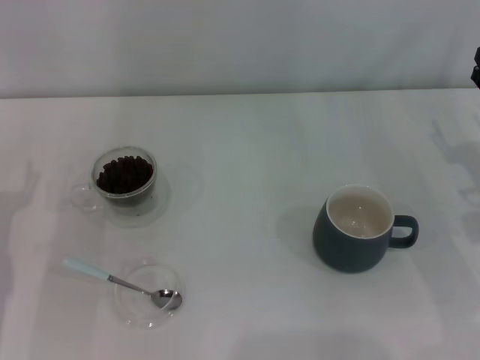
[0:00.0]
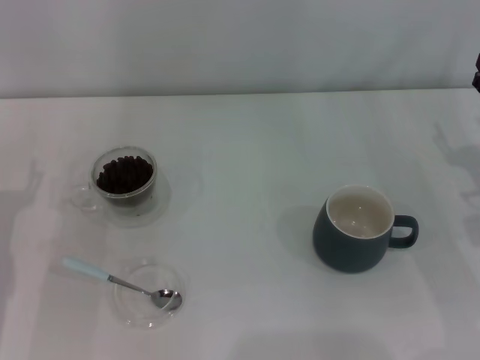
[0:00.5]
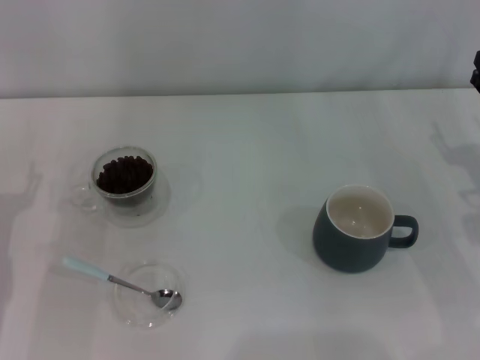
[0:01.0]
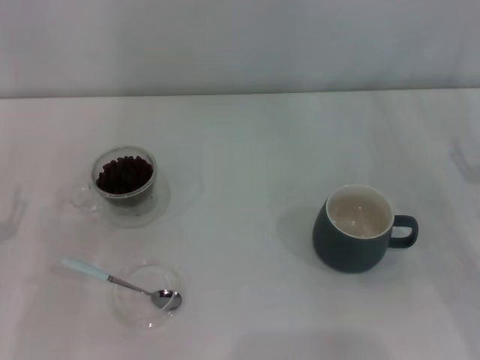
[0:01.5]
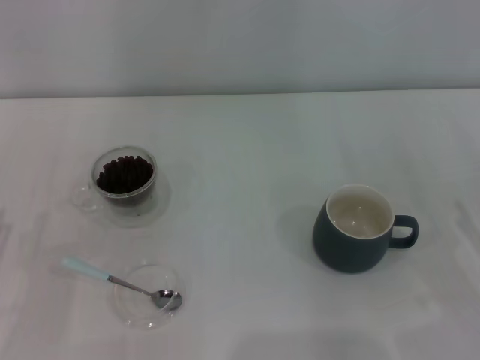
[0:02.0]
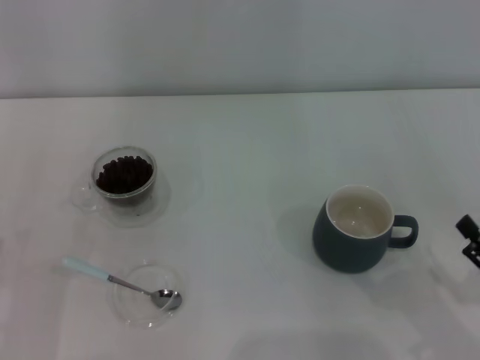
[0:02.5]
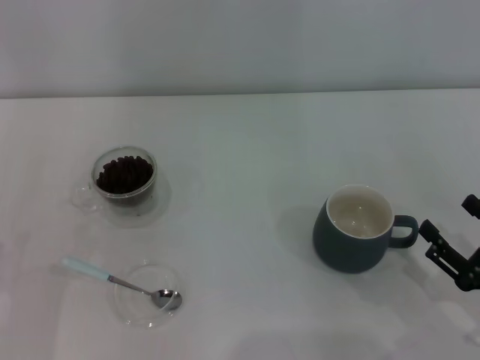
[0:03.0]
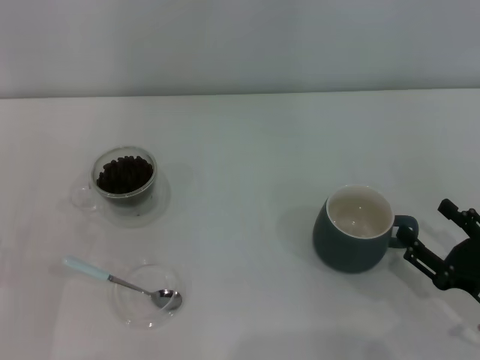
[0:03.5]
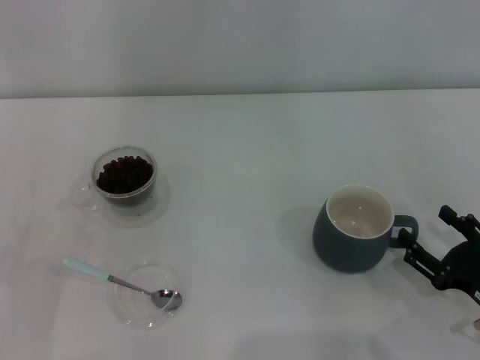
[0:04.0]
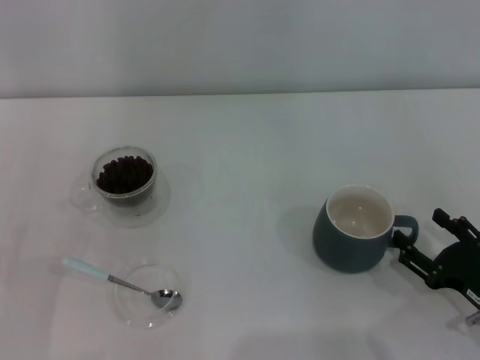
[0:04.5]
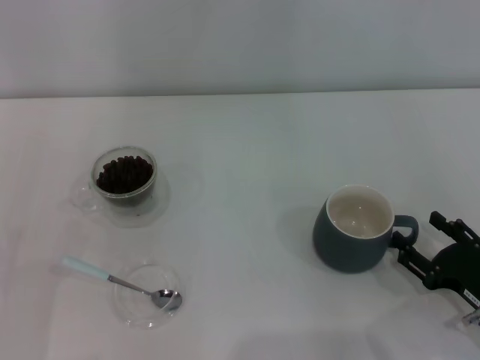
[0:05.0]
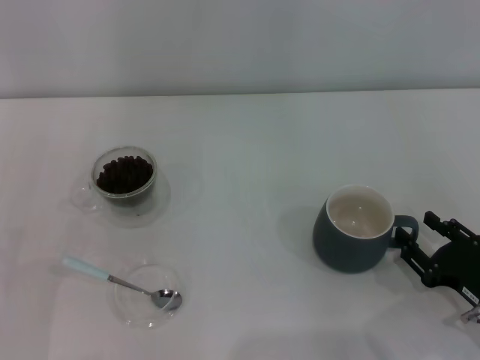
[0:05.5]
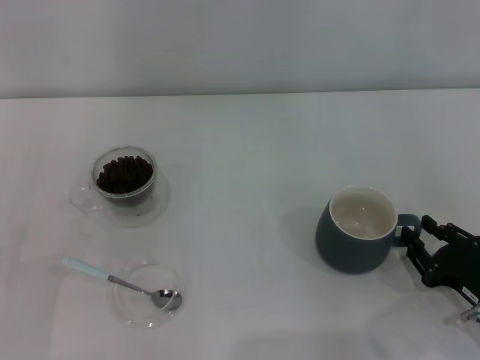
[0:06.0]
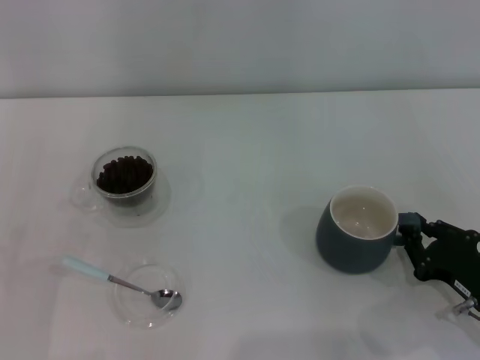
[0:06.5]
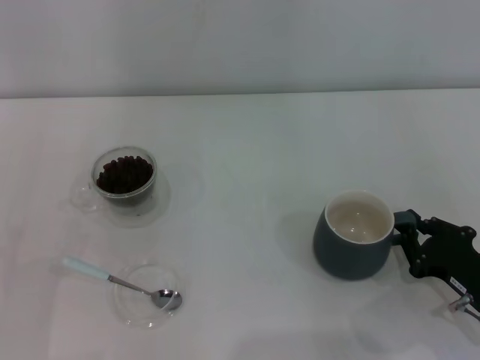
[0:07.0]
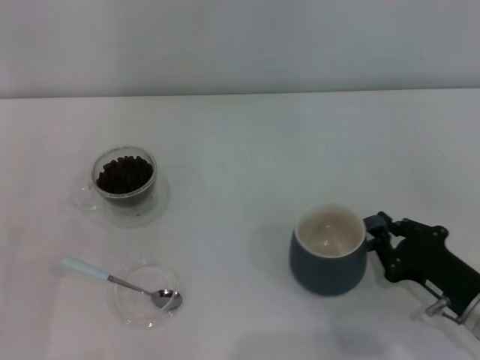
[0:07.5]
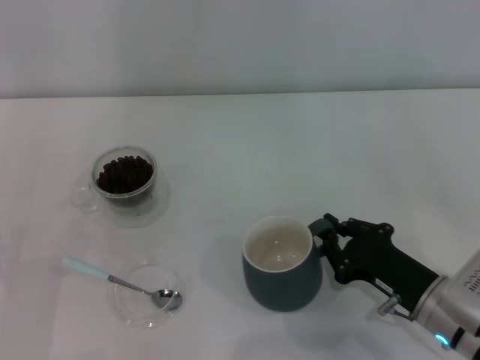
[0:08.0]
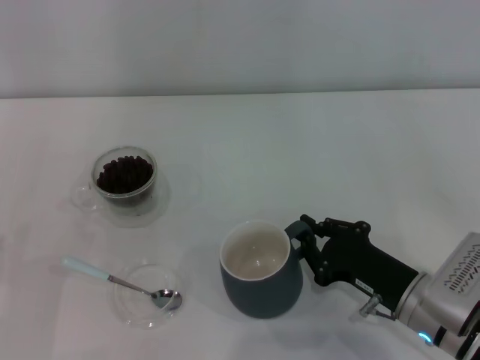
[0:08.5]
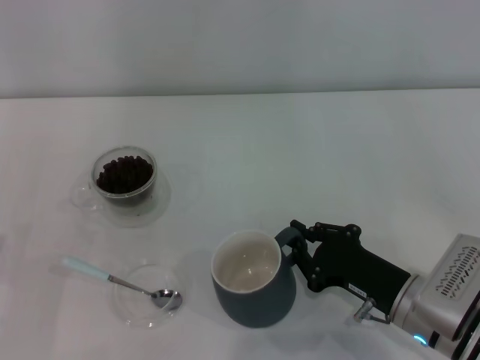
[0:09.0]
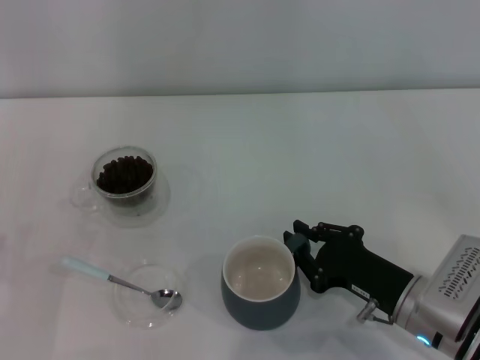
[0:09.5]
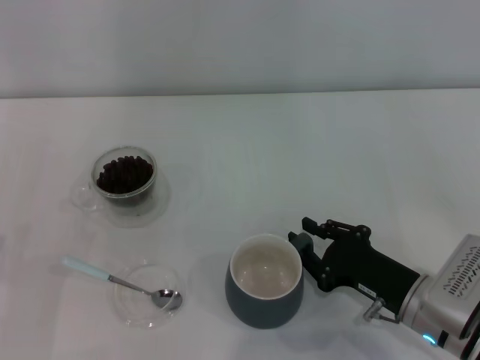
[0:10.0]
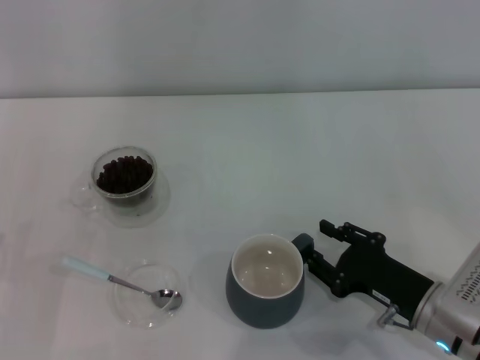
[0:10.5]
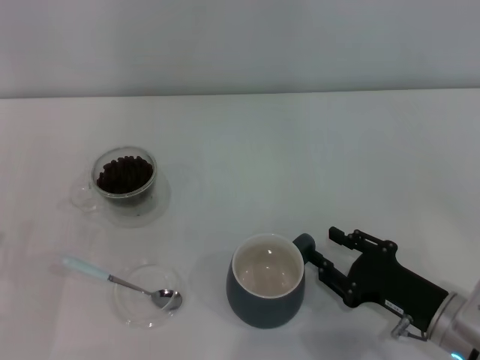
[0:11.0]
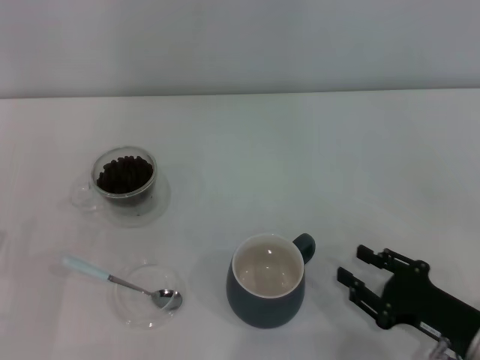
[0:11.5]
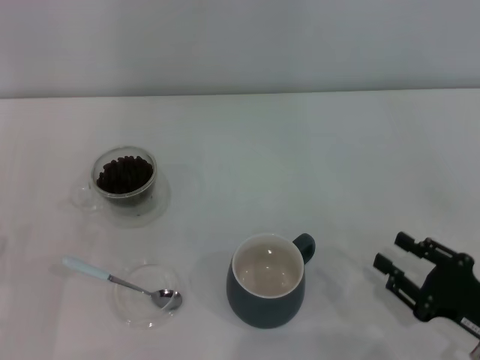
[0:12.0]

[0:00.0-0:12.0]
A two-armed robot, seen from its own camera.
Task of the whole recording: Use a blue spoon to take out the coffee beans from the glass and pour them into the gray cup.
Step, 0:00.0 to 0:11.0: Move the cup to the center of view with the left gripper.
0:02.0 to 0:04.0: The right gripper ends up roughly 5 cm from where it was.
0:04.0 to 0:06.0: The right gripper closes its fingers.
0:06.0 to 0:08.0: The right gripper travels to the left by some 10 cm, and closes its fingers.
0:08.0 to 0:10.0: The grippers make only small movements.
0:10.0 to 0:12.0: The right gripper goes some 10 cm to the right and backward.

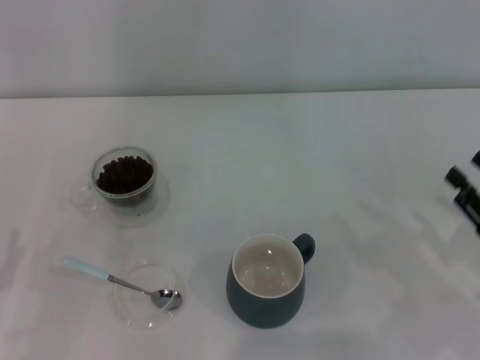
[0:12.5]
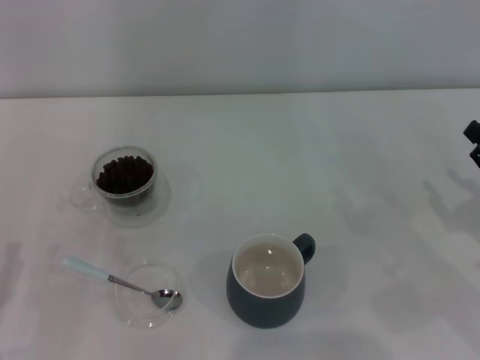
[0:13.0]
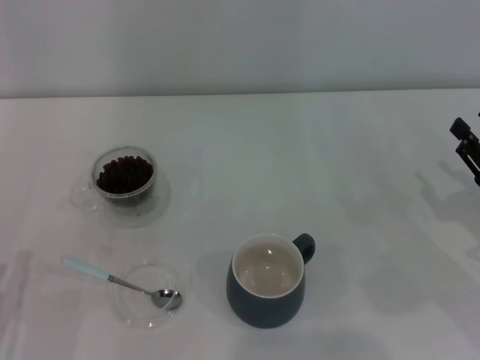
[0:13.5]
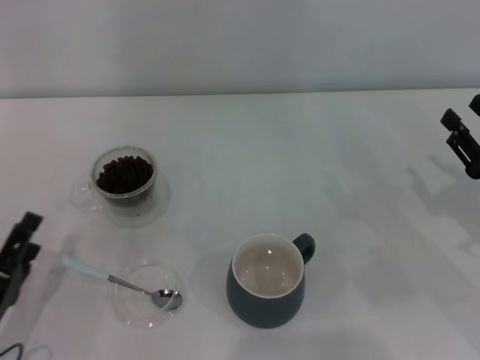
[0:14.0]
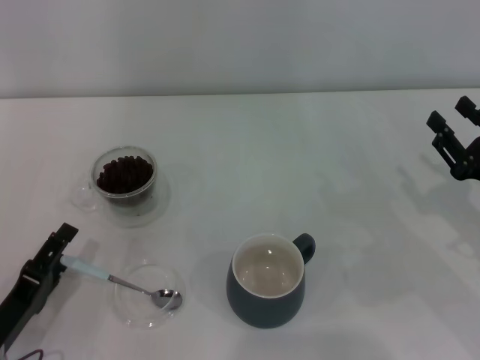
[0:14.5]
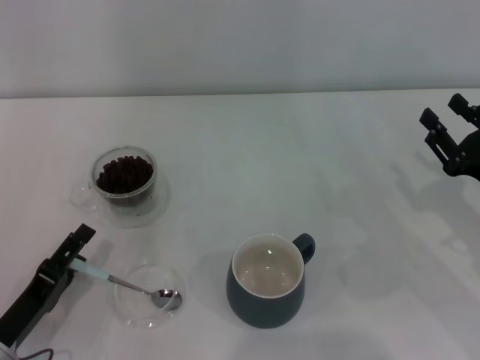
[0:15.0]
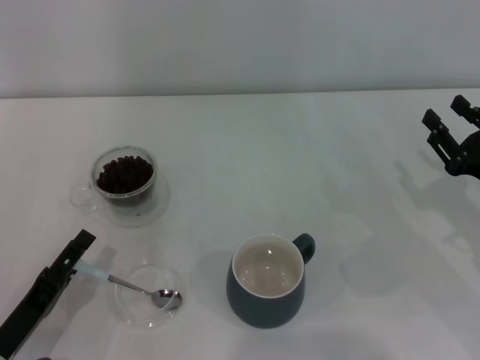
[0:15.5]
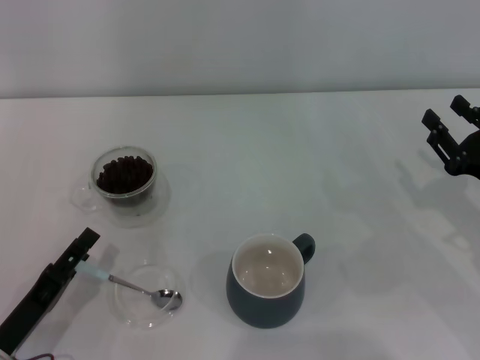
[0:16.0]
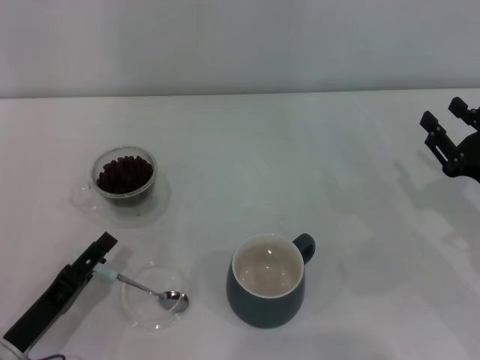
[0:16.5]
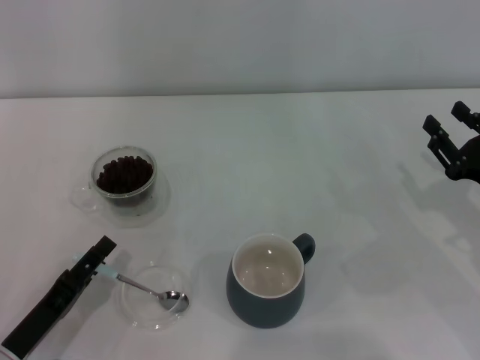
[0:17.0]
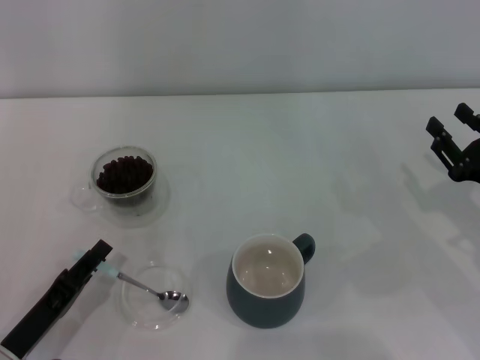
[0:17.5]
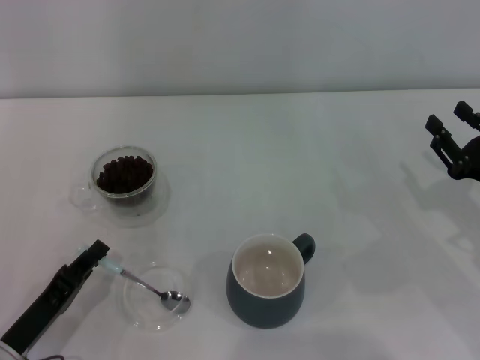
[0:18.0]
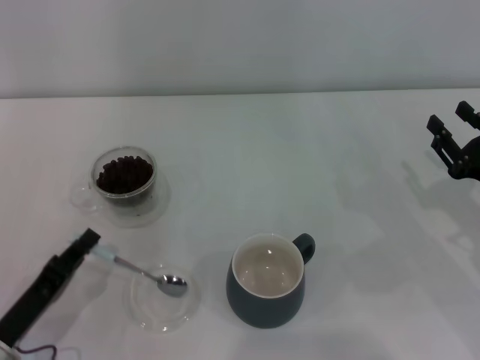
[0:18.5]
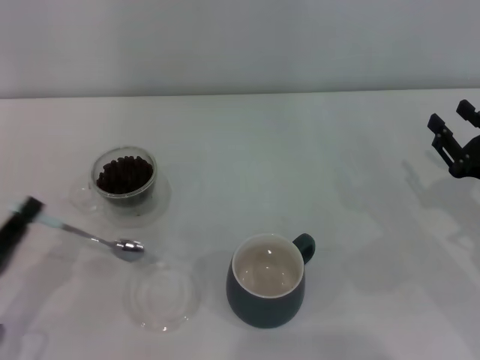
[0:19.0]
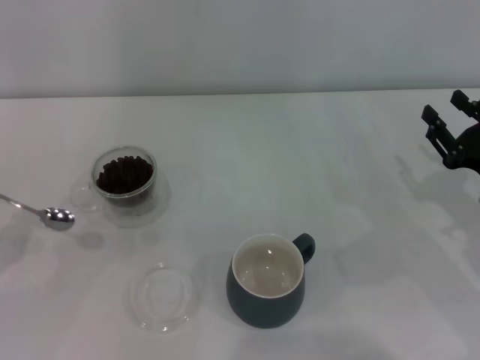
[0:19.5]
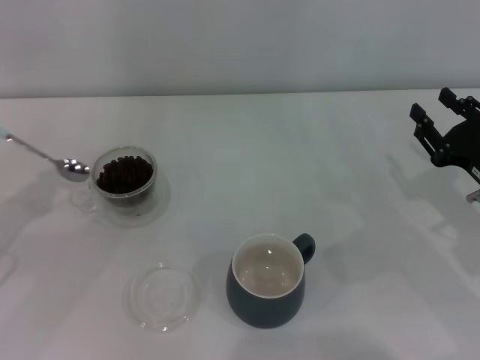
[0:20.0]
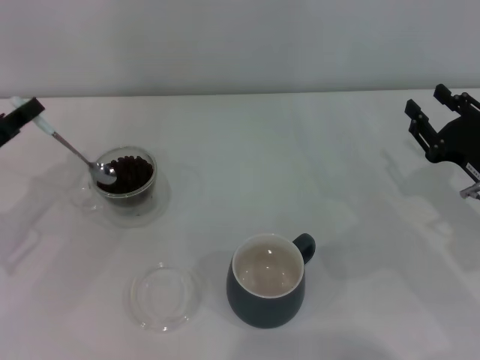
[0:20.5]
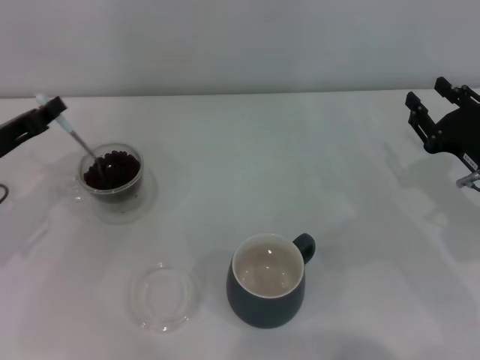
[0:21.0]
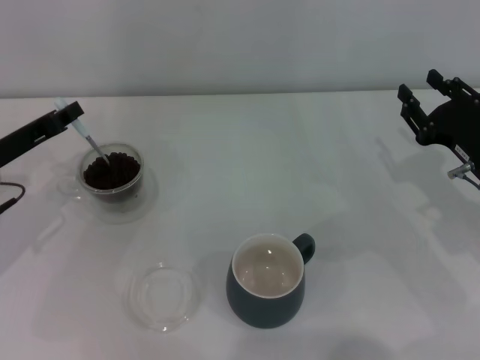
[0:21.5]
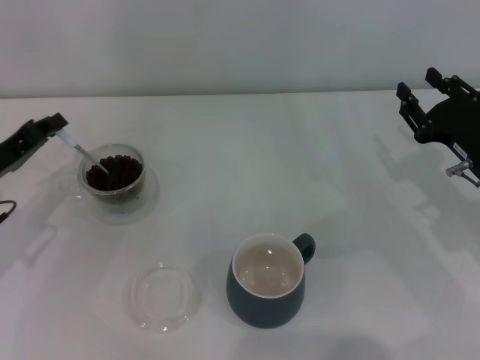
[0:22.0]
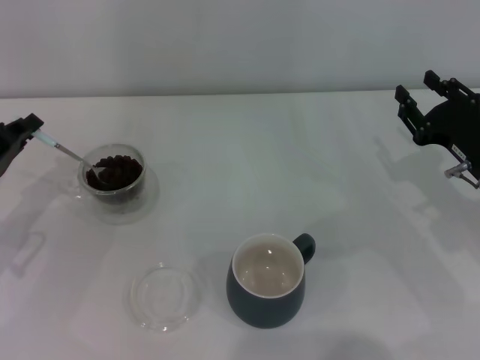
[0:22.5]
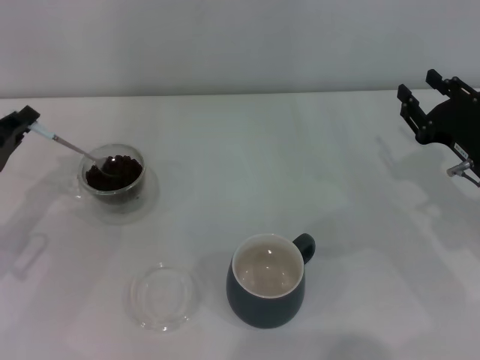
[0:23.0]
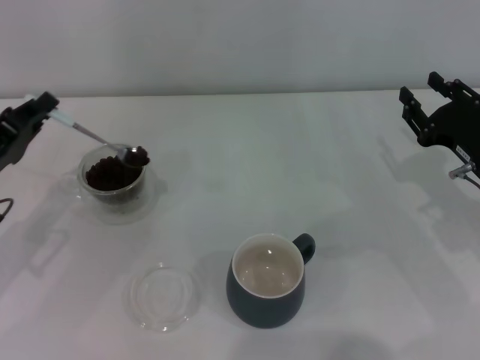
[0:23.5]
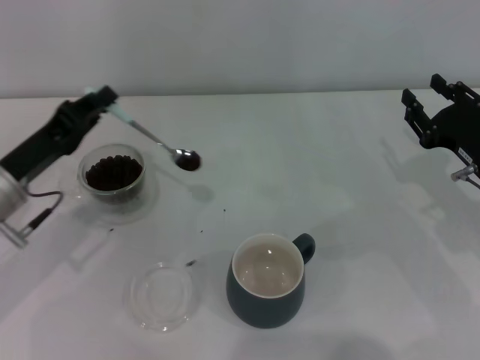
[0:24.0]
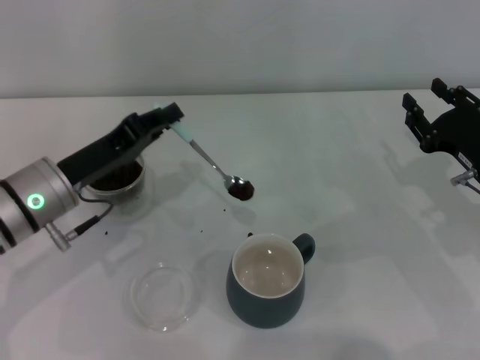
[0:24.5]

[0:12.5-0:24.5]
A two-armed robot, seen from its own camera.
Task of the whole recording: Use a blue spoon to take out the coffee beans from the glass and pour them into the gray cup.
Step, 0:12.5 to 0:18.5: Pick up the spoon with the right gripper.
0:12.5 to 0:14.5: The left gripper moves about 5 cm, while the right gripper shifts approximately 5 cm forward.
0:14.5 to 0:16.5: The grippers move only a little.
0:16.5 to 0:18.5: The left gripper closes.
0:18.5 to 0:20.5: The left gripper goes some 15 cm forward, upward and to the left.
0:20.5 to 0:22.5: The grippers make only small movements.
0:22.5 to 0:24.5: The left gripper shifts some 10 cm to the right.

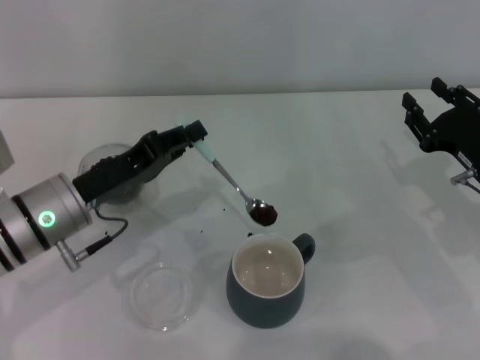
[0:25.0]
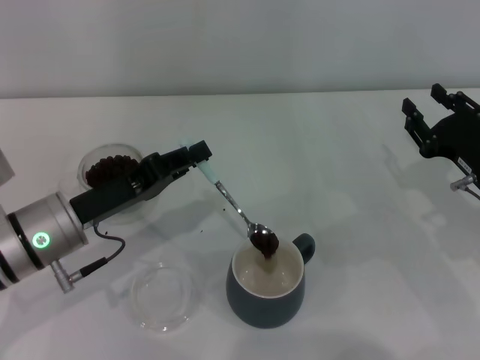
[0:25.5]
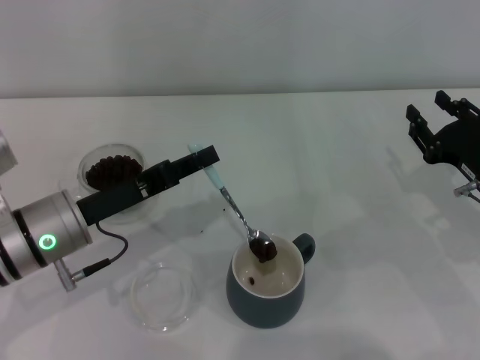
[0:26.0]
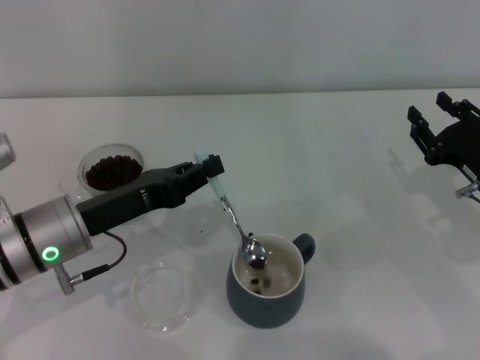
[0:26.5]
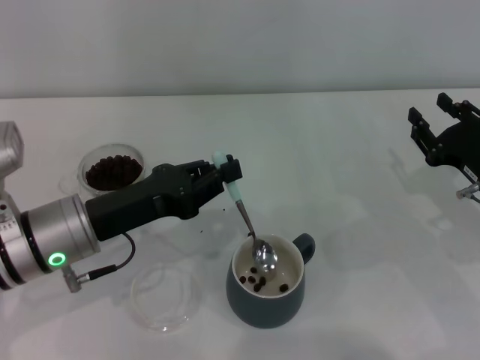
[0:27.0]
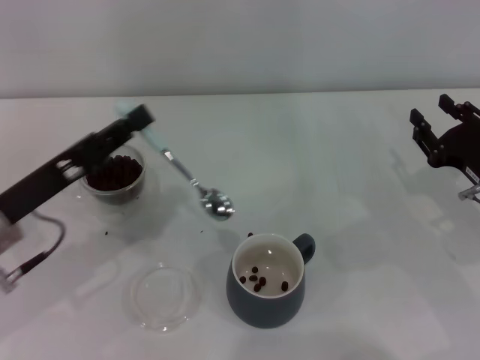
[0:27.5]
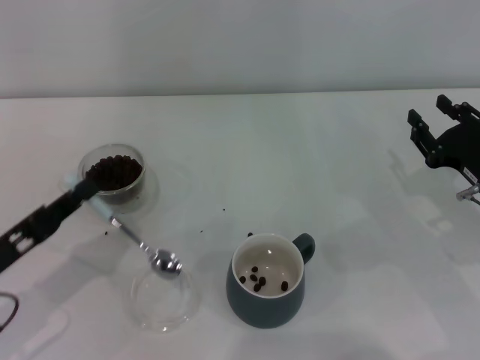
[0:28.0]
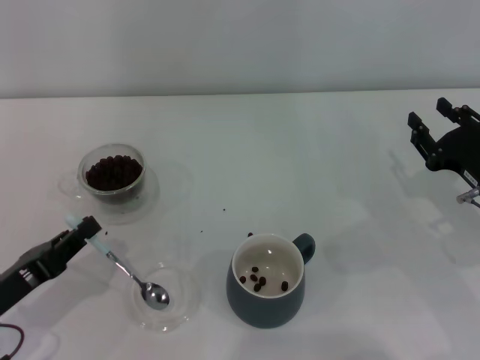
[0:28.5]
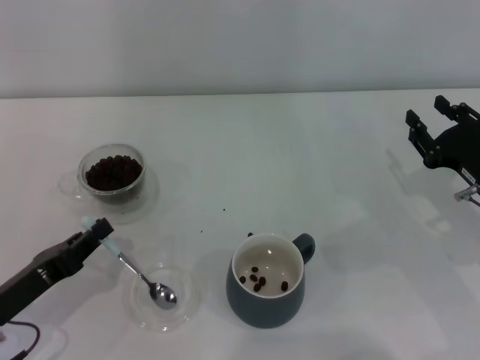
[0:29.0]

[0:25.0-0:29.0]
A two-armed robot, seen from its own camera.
Task of the whole recording: Use a blue spoon to take out the coffee beans from the glass and pour them into the gray cup.
Step, 0:25.0 to 0:27.0: Scoop a spoonful of beans into the cup with the right gripper.
0:27.0 to 0:29.0: The left gripper goes approximately 15 cm to the left, backward and downward.
